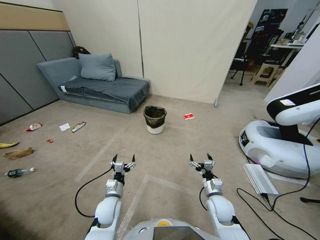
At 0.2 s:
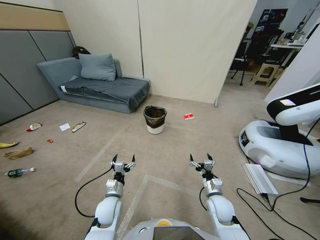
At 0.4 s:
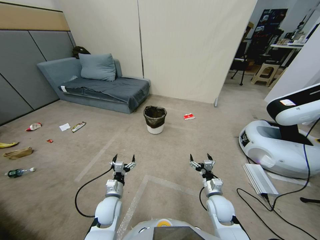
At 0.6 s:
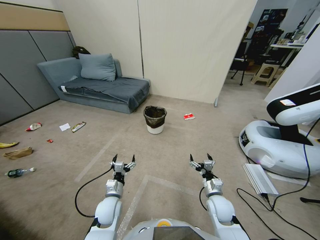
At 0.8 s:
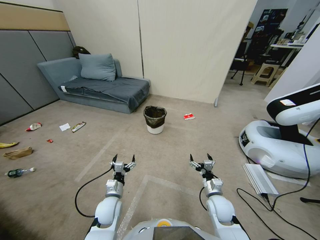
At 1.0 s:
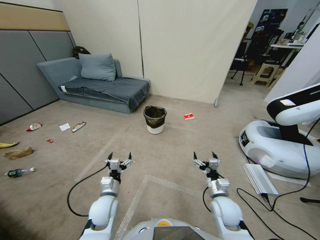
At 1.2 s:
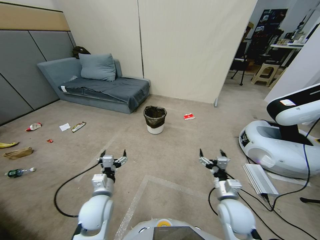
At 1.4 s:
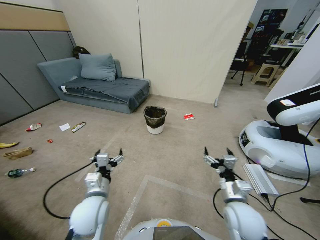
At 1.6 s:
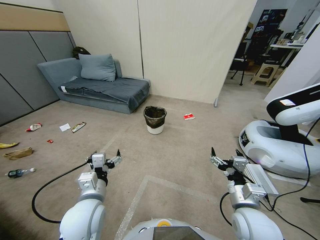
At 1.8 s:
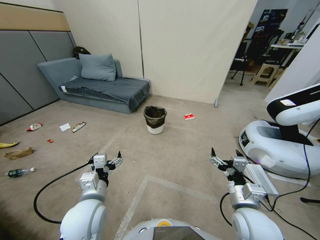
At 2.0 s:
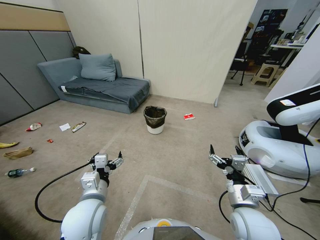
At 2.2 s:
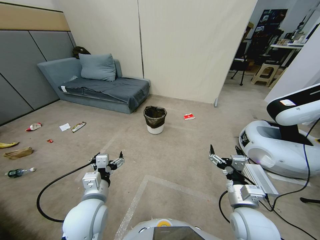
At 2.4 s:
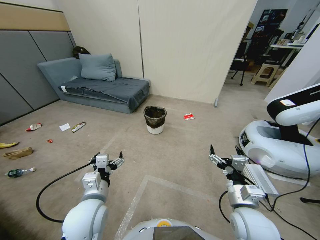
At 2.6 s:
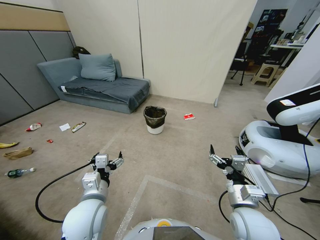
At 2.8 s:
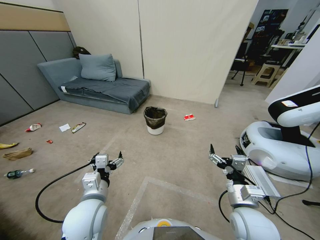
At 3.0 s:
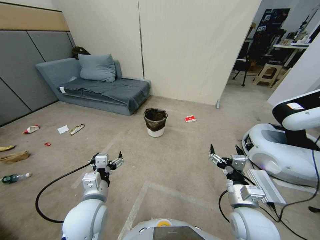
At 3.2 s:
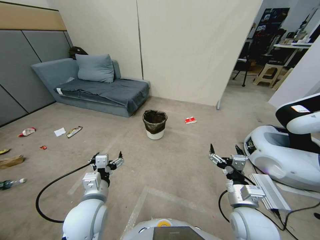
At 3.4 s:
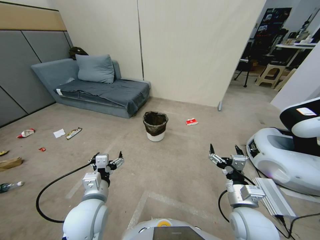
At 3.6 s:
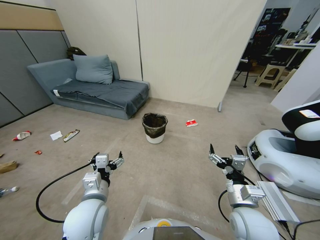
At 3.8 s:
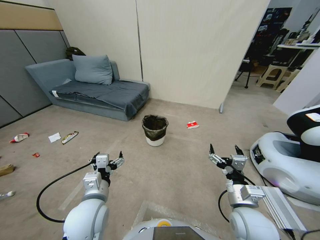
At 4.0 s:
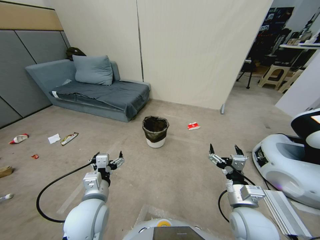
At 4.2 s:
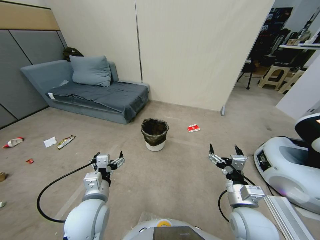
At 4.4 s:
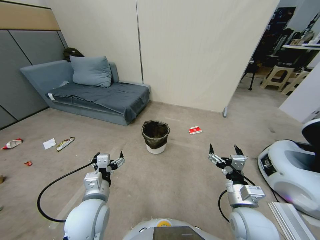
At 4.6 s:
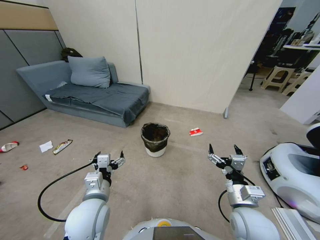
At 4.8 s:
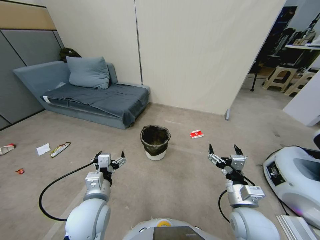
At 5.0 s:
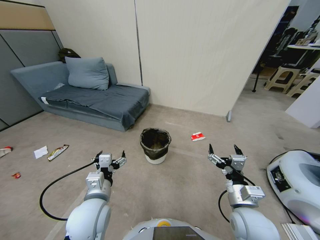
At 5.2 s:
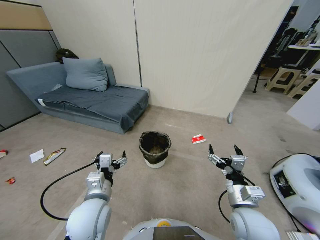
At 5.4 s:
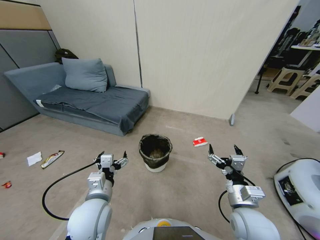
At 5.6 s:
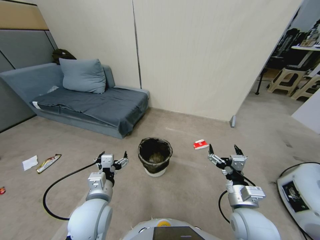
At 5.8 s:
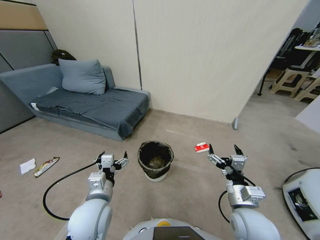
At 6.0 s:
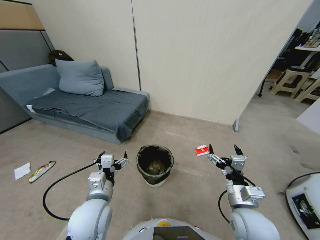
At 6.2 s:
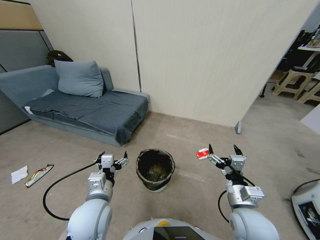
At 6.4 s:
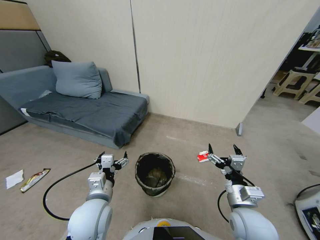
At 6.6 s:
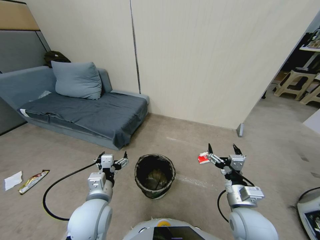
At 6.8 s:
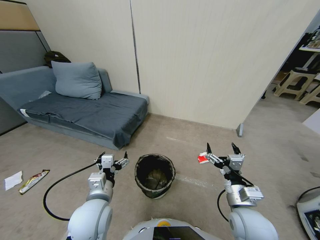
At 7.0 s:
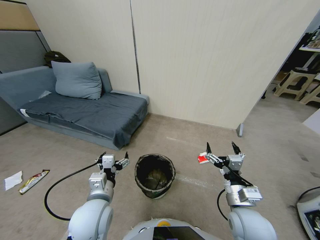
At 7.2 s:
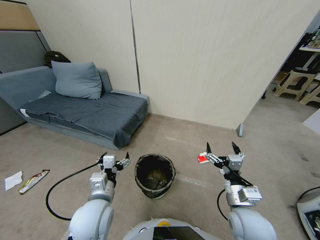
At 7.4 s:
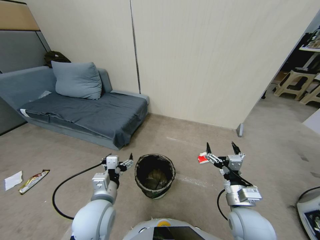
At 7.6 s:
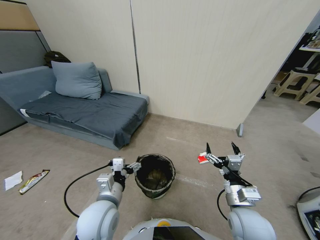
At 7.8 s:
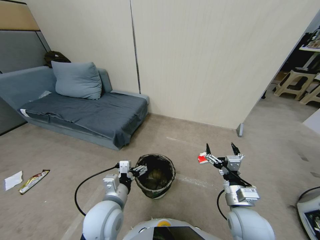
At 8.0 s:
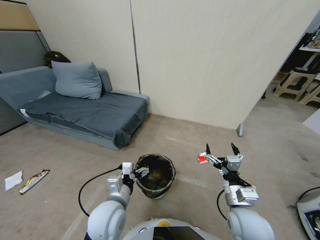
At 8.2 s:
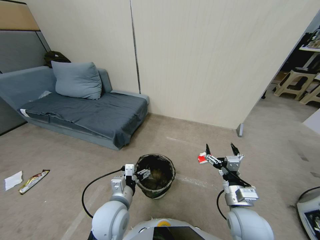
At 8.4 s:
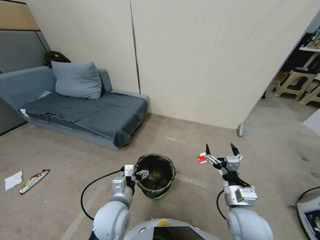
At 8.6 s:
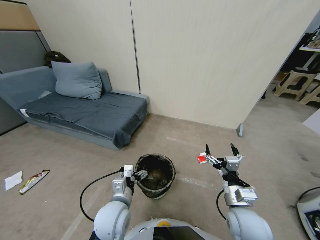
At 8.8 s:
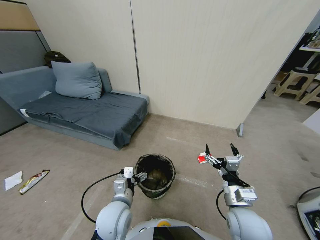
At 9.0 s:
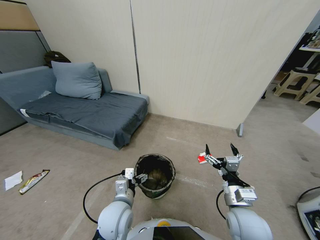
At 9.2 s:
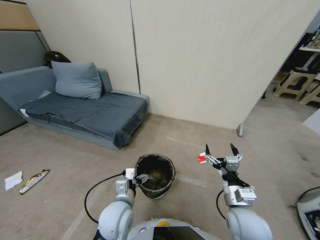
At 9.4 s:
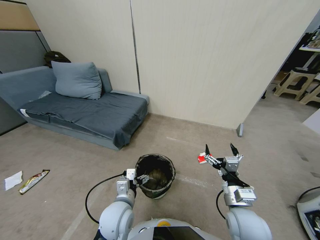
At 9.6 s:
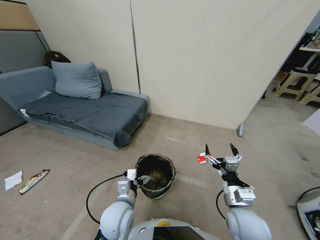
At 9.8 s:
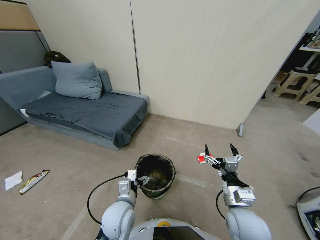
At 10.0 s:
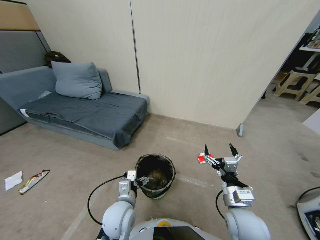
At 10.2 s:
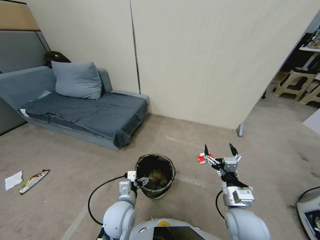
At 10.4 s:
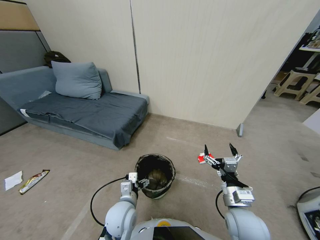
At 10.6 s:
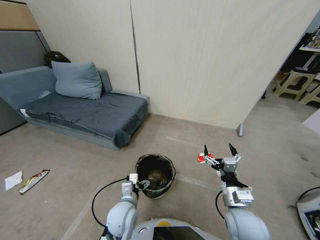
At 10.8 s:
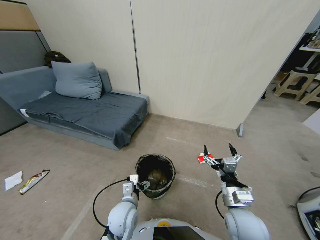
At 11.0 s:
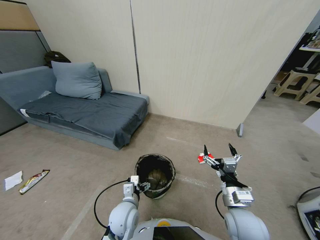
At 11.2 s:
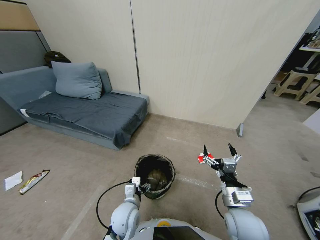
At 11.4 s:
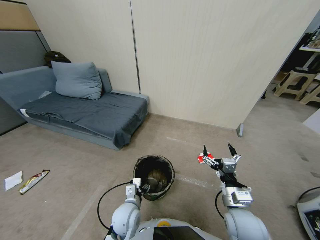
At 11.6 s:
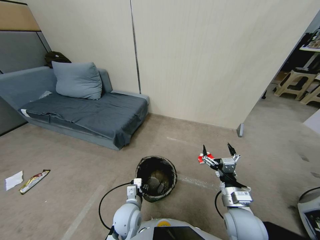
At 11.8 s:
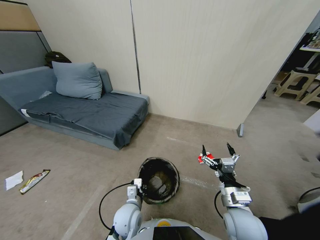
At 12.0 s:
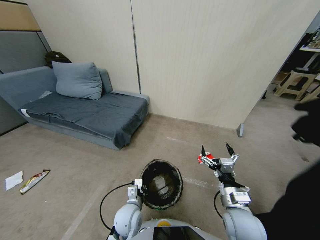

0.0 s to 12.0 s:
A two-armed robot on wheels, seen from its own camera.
Task of the whole recording: Pick up the trash bin, then pick up the garbage from the floor and place it into the trash bin.
1.6 to 3.0 s: The grippers stay close to where they were, moving slightly.
6.0 to 7.6 s: The grippers make only small movements.
7.6 to 9.0 s: The left gripper changes place by approximately 5 cm.
9.0 to 10.4 s: The grippers stay close to where they were, moving slightly.
10.4 to 12.0 s: The left gripper changes place by some 5 cm, and closes its fingers.

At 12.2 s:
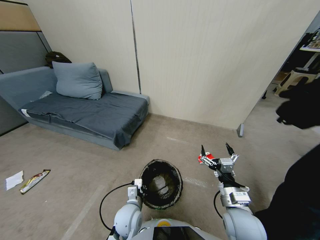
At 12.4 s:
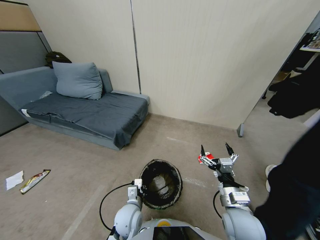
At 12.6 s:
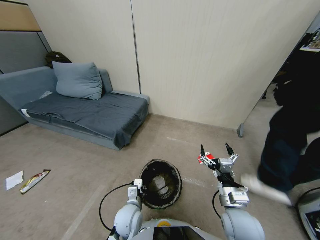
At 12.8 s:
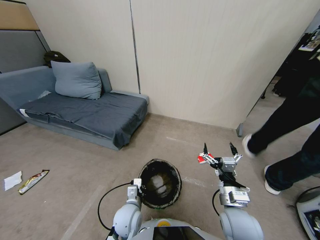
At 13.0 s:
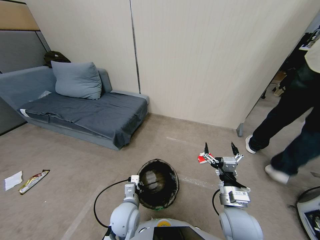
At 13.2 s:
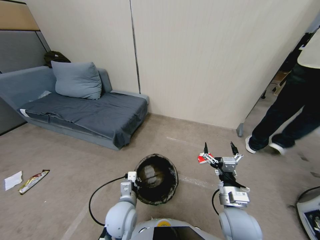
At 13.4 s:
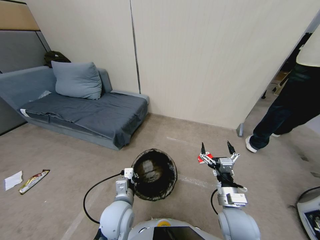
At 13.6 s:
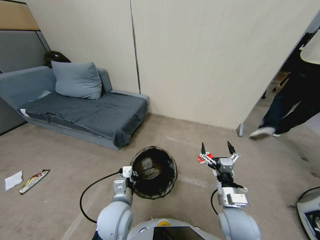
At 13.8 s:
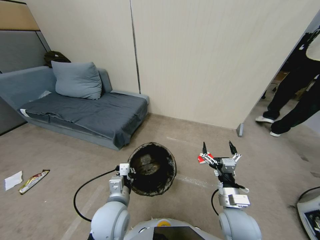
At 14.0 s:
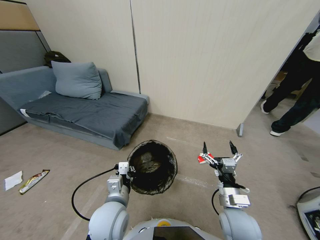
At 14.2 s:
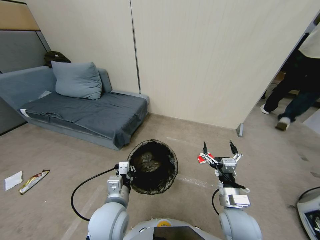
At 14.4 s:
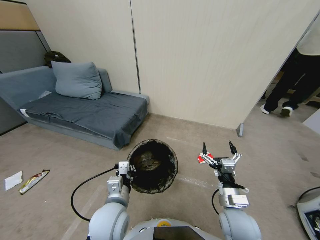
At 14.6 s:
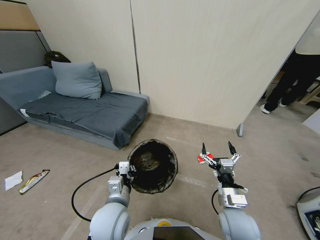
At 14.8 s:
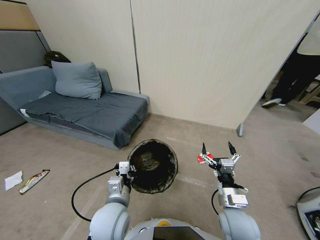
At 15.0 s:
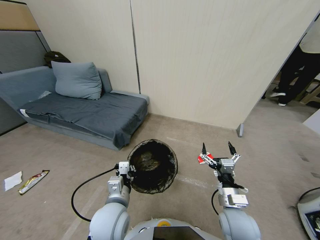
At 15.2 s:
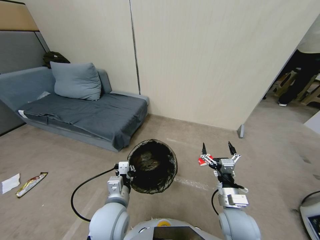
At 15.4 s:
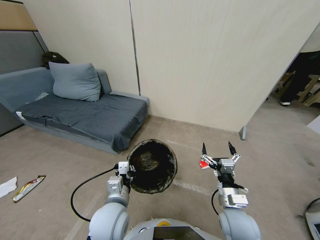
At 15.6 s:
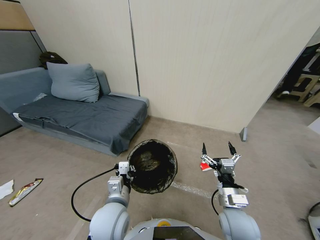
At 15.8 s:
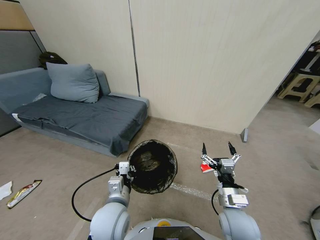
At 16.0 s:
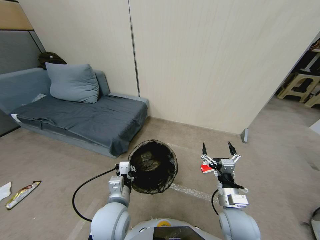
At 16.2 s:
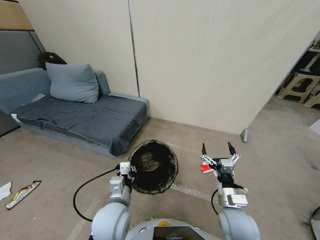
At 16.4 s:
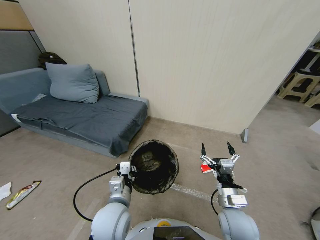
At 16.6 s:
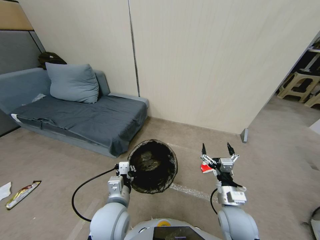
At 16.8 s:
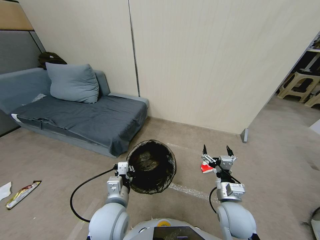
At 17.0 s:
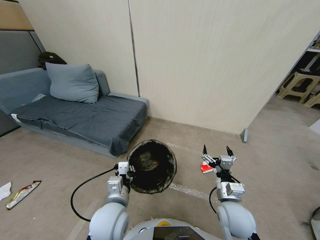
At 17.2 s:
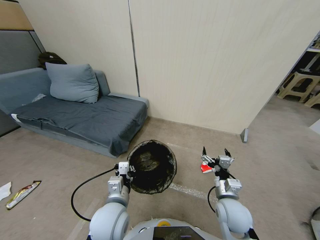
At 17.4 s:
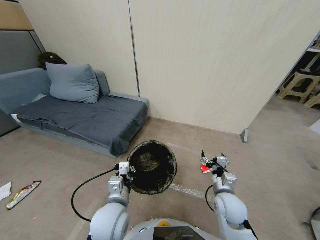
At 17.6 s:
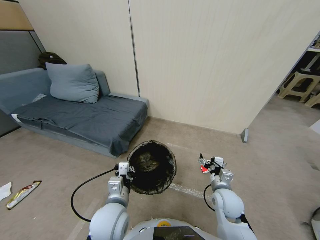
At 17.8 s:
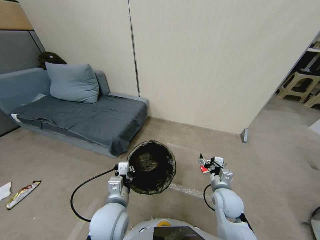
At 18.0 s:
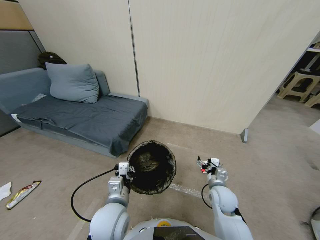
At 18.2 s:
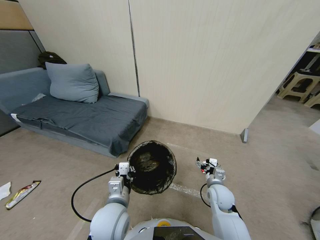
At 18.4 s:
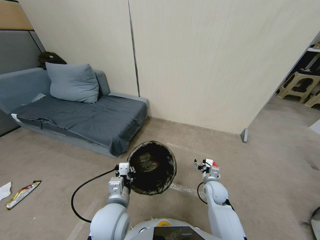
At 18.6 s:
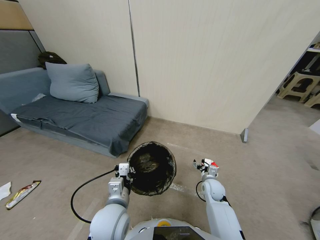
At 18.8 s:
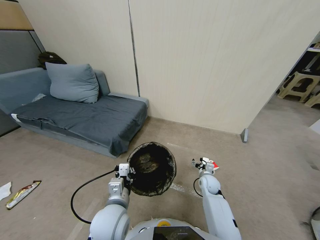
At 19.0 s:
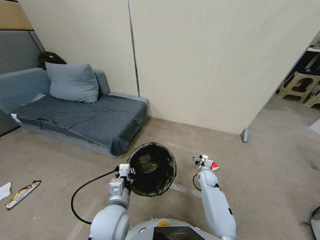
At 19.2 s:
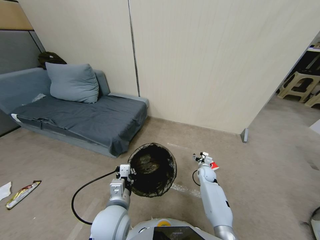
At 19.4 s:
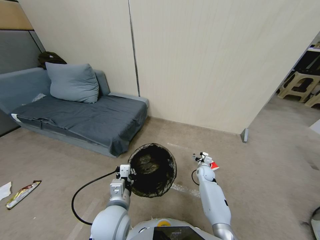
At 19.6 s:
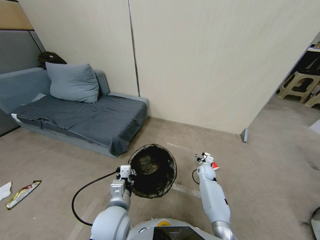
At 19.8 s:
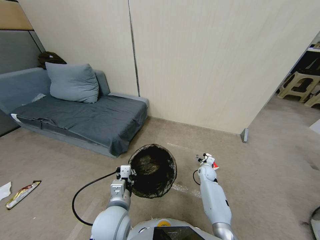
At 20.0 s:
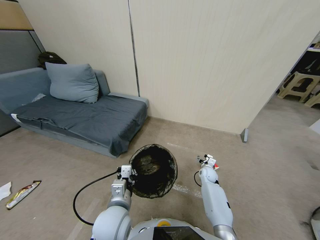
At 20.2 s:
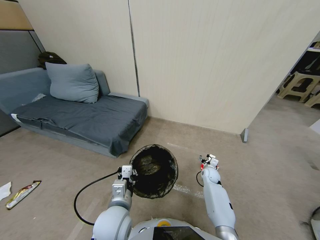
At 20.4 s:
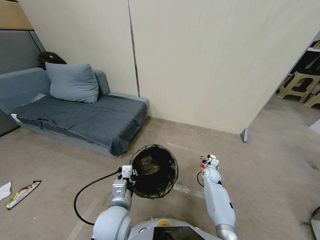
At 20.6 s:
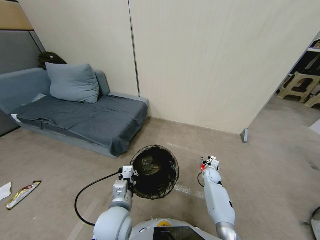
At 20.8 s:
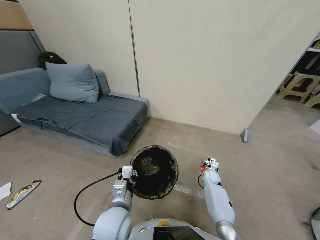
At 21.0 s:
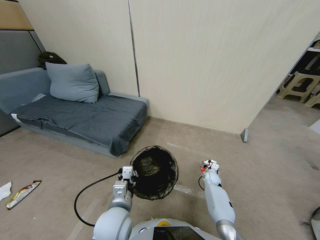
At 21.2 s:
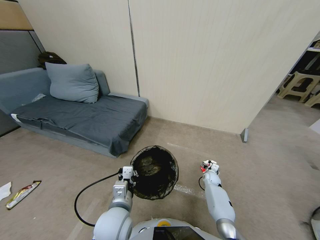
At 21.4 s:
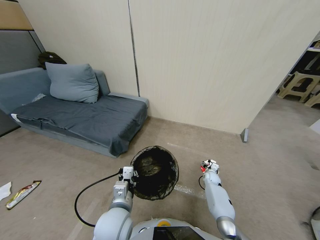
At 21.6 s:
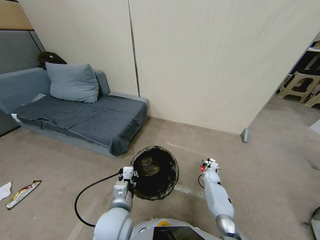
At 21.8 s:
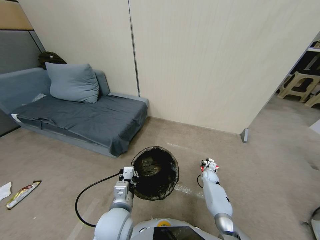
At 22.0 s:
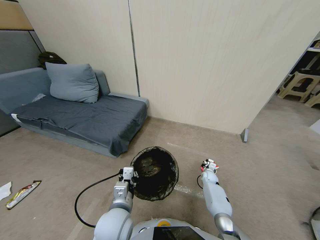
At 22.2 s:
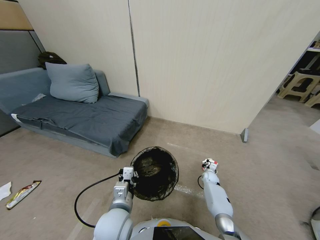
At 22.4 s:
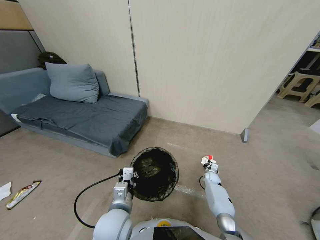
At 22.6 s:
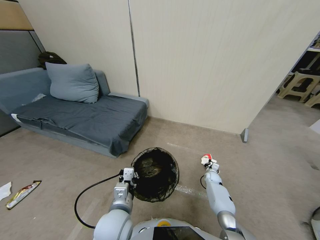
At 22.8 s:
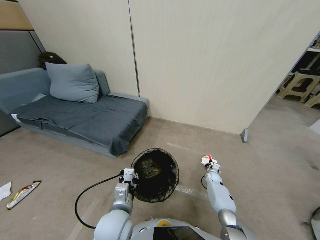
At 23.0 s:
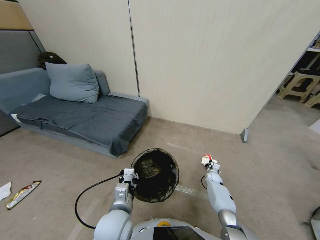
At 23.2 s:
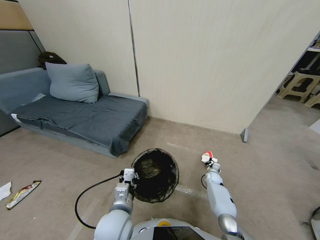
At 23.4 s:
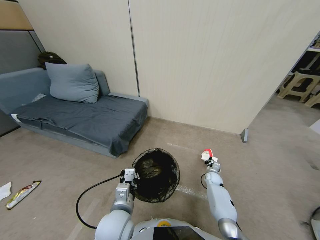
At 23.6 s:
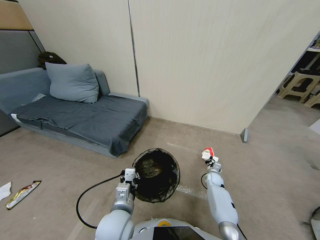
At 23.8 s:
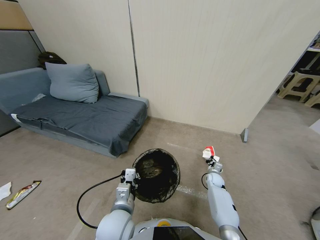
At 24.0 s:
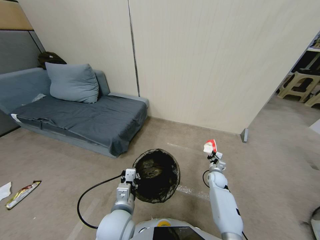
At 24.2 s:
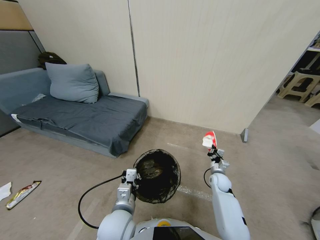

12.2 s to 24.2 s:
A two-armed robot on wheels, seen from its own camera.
Task of the whole recording: Pick up the trash bin, then pick up the garbage from the floor and place it into the trash bin.
12.2 to 13.8 s: The left gripper shifts roughly 15 cm upward.
13.8 to 15.2 s: The two grippers keep their place.
15.2 to 16.6 s: The grippers make only small movements.
16.6 to 18.2 s: The right gripper heads forward and downward, covering some 15 cm.
18.2 to 19.8 s: The right gripper is displaced forward and downward by approximately 15 cm.
19.8 to 21.2 s: The right gripper is displaced downward by about 5 cm.
21.2 to 22.6 s: The right gripper closes.
22.6 to 24.2 s: The right gripper moves upward and backward, approximately 15 cm.
